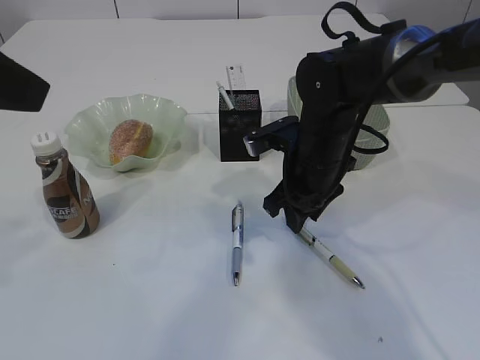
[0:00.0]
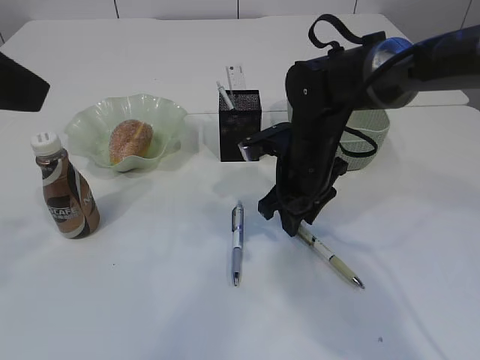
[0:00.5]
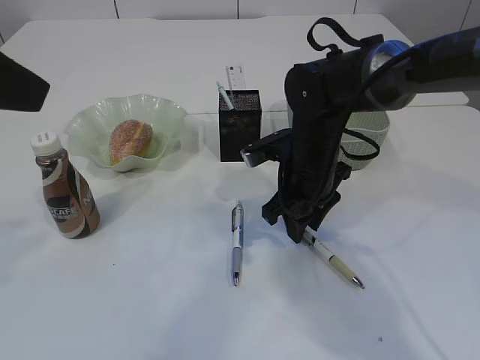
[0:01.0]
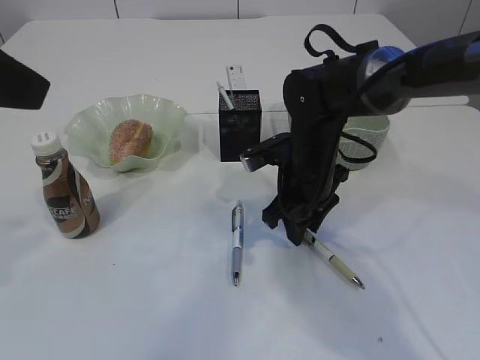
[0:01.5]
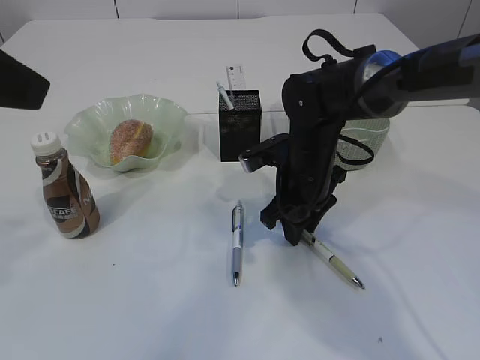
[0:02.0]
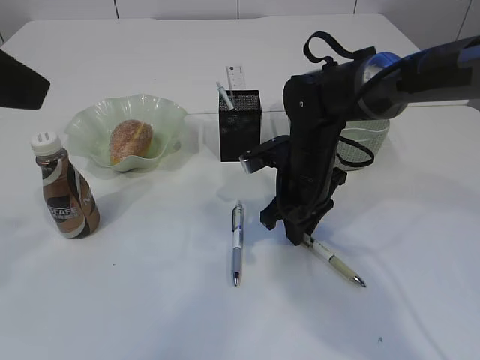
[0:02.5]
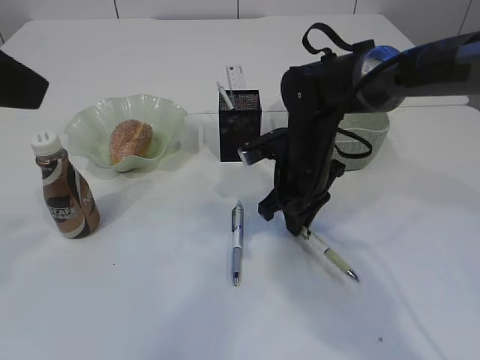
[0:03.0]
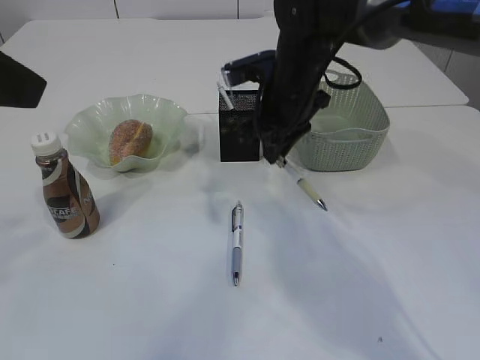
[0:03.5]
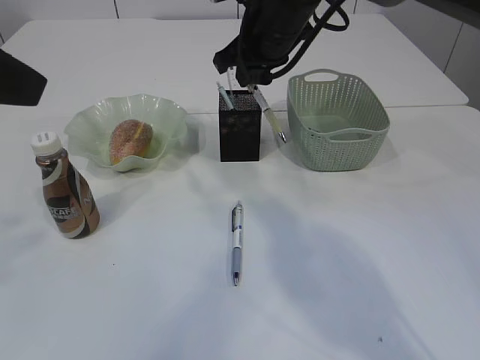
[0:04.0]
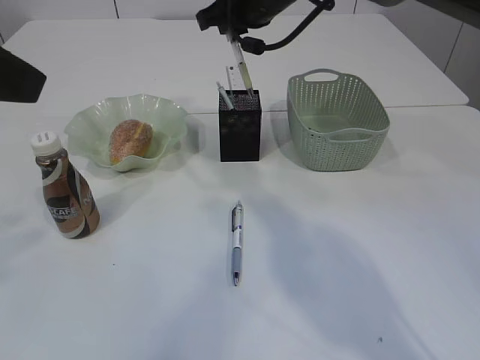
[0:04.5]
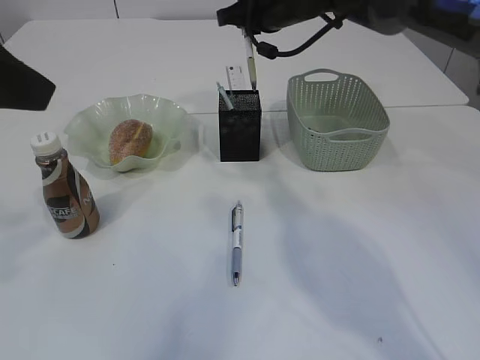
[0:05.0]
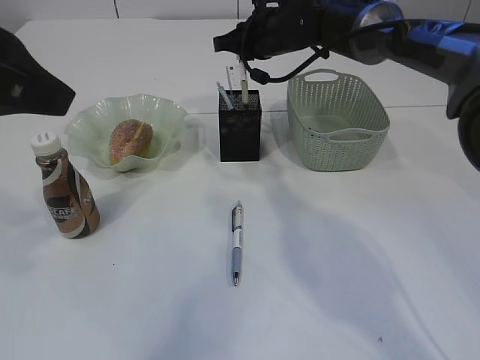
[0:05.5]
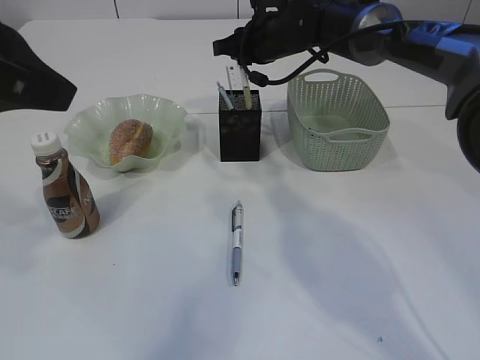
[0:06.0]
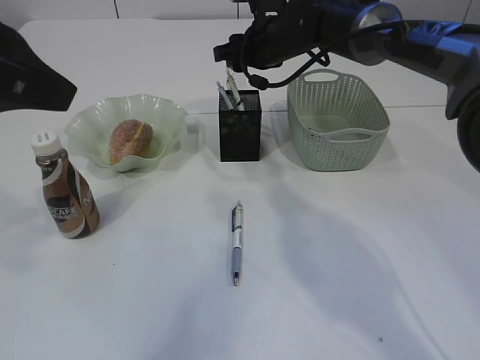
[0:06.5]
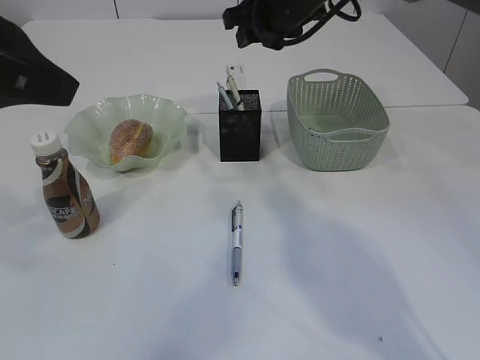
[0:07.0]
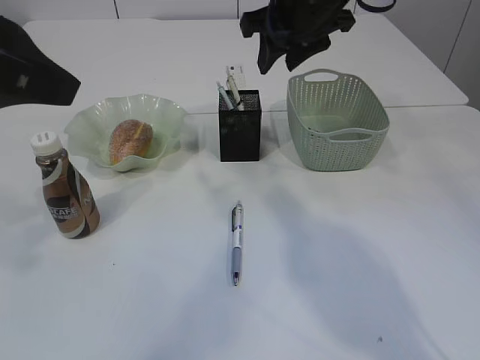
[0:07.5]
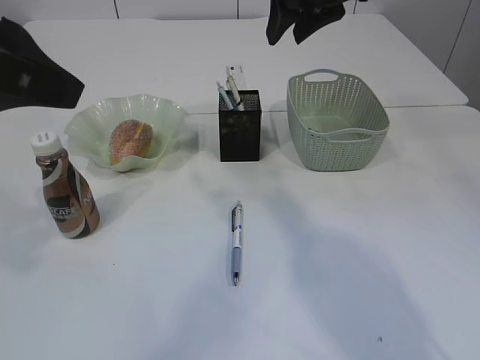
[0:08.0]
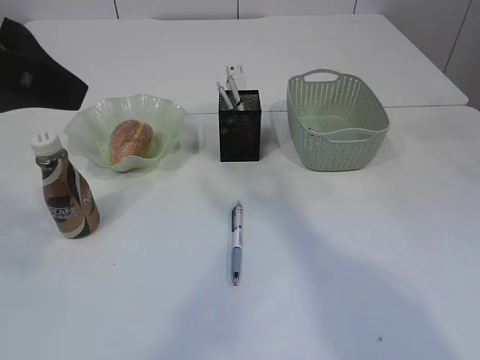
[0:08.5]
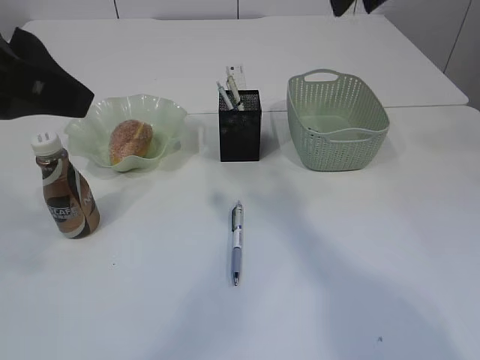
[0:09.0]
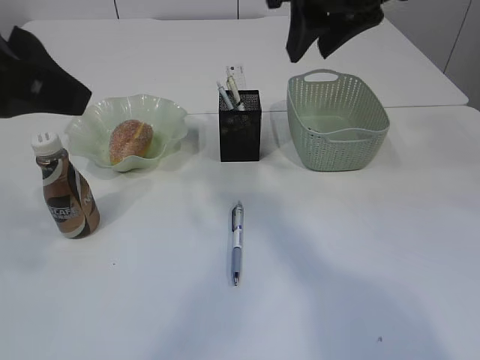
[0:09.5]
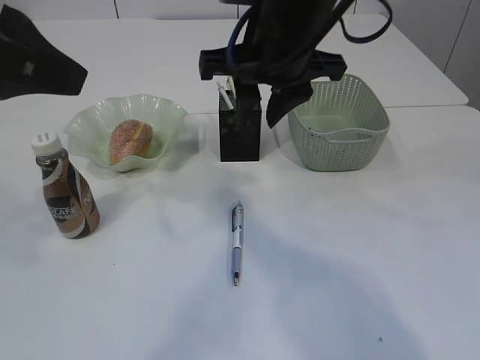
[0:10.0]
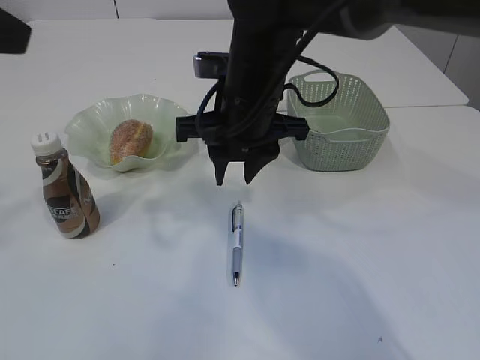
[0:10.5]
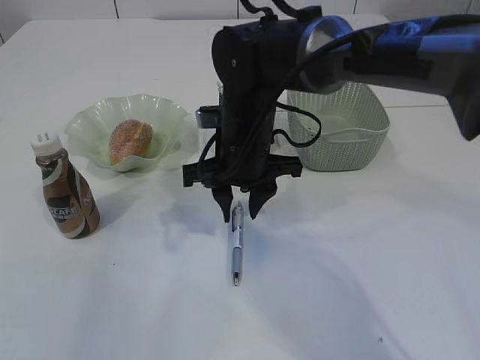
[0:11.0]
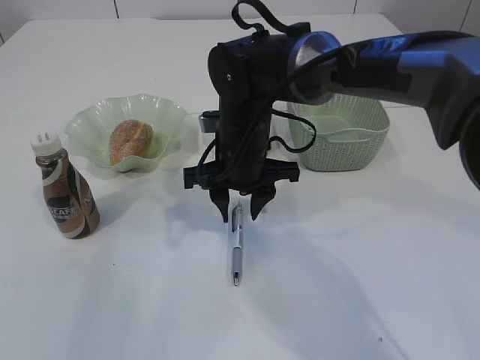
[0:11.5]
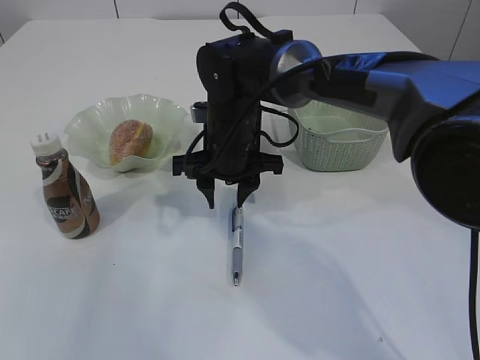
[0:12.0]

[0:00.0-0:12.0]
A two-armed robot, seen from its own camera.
Step, 0:00.0 to 0:03.5: Pick up the pen with right arm.
Step, 0:04.0 to 0:07.5: Place the pen into the pen holder.
0:00.0 to 0:02.0: There are only small adjustments of the grippers.
0:02.0 to 0:04.0: The right gripper heads upward and forward, covering approximately 15 cm, and closes up.
0:04.0 to 0:06.0: The right gripper heads forward and downward, covering approximately 10 cm.
0:06.0 to 0:08.0: The right gripper goes some 15 cm upward and backward.
0:08.0 to 0:10.0: The right gripper goes approximately 10 cm backward and to the left.
0:10.0 to 0:12.0: The right gripper is displaced downward by about 15 cm; the left gripper shifts roughly 10 cm to the left.

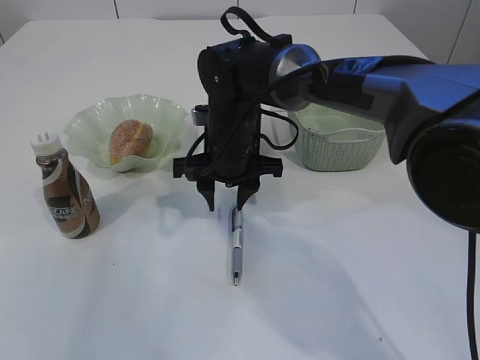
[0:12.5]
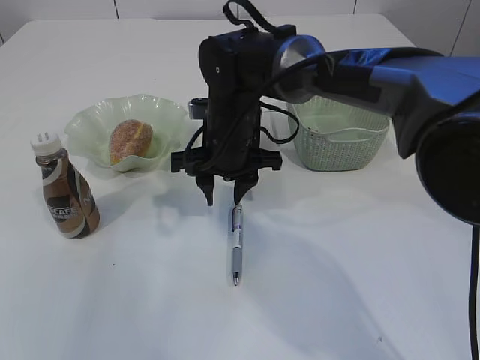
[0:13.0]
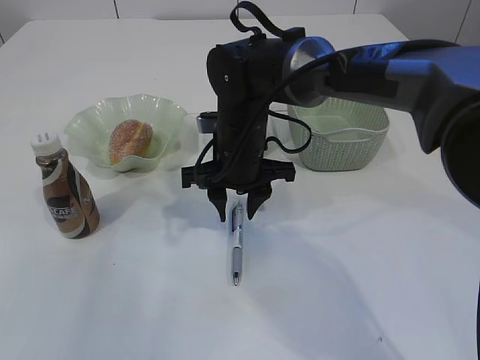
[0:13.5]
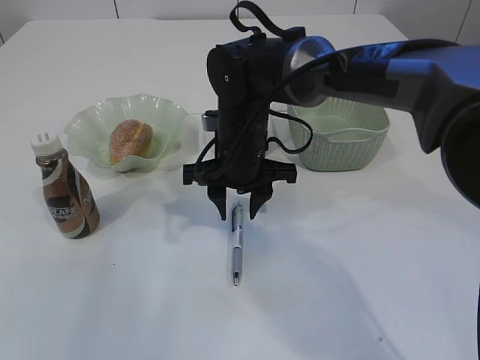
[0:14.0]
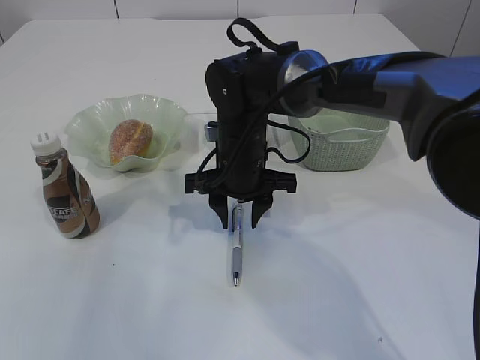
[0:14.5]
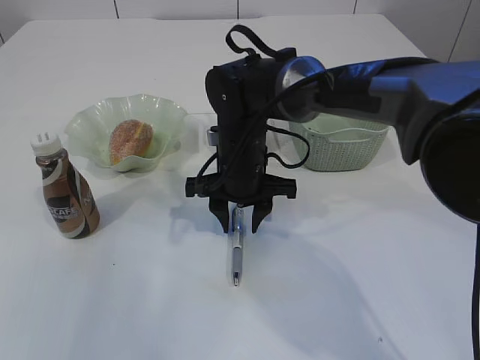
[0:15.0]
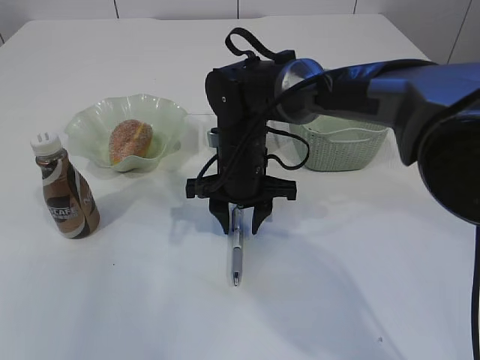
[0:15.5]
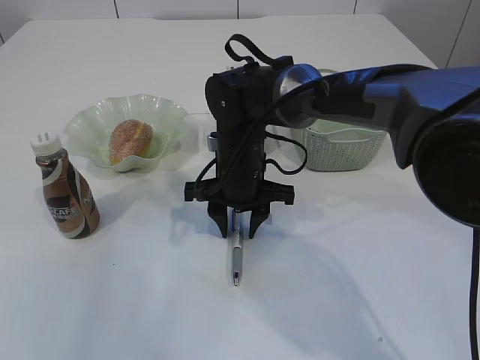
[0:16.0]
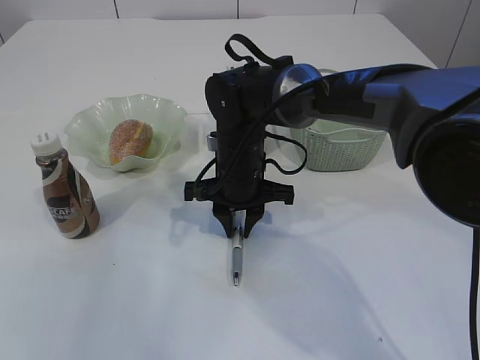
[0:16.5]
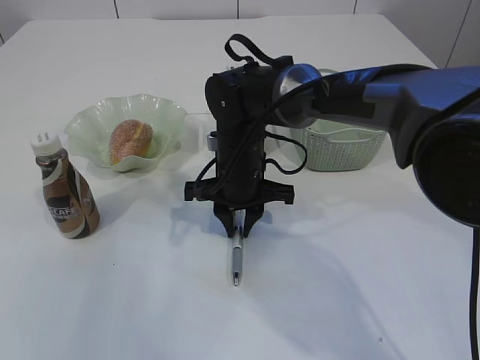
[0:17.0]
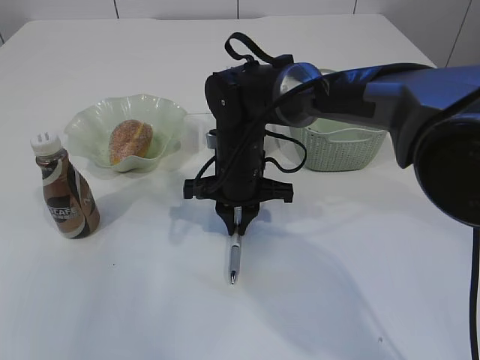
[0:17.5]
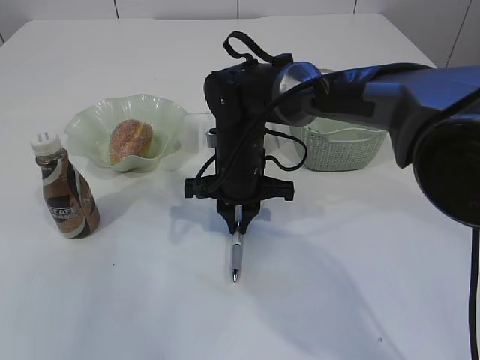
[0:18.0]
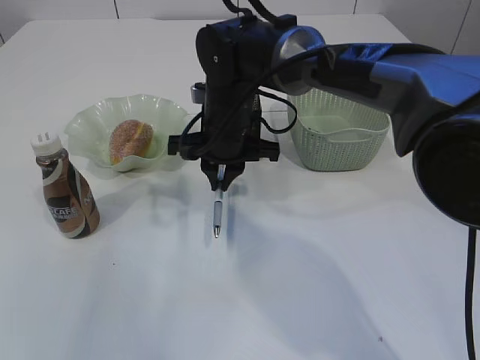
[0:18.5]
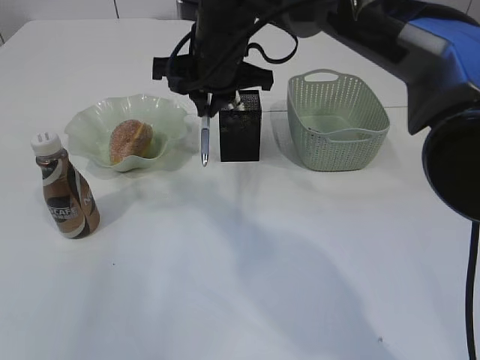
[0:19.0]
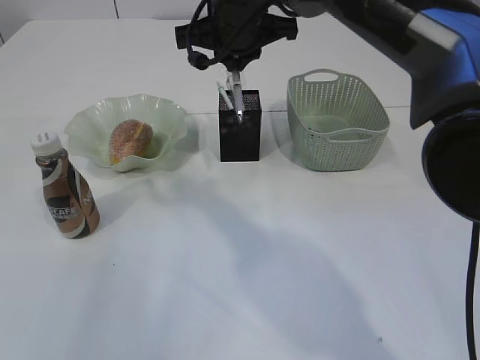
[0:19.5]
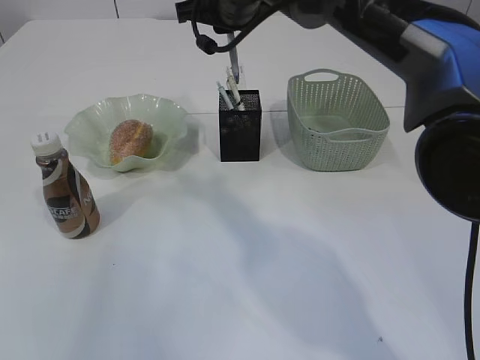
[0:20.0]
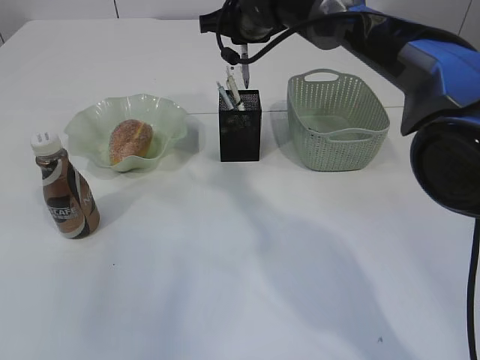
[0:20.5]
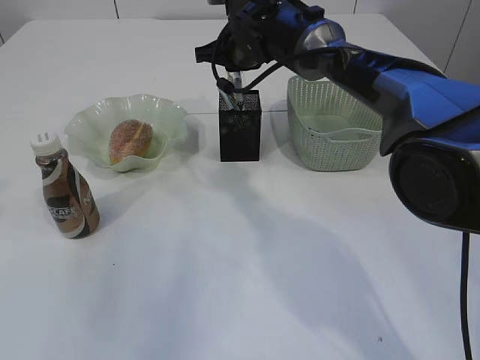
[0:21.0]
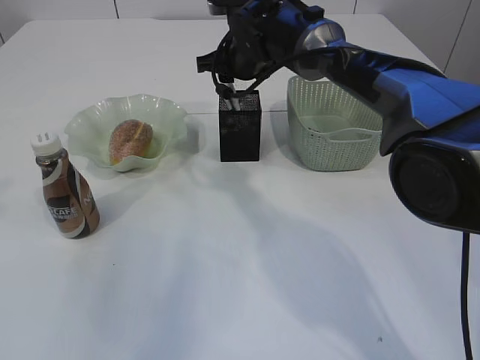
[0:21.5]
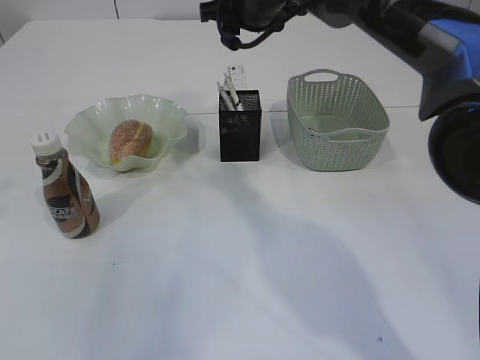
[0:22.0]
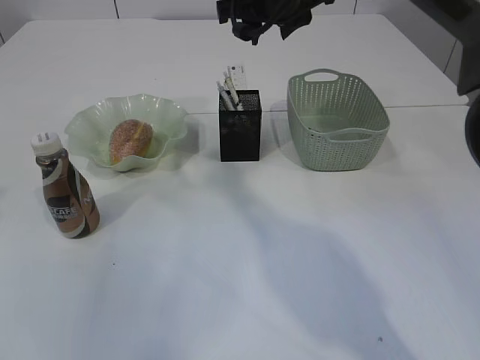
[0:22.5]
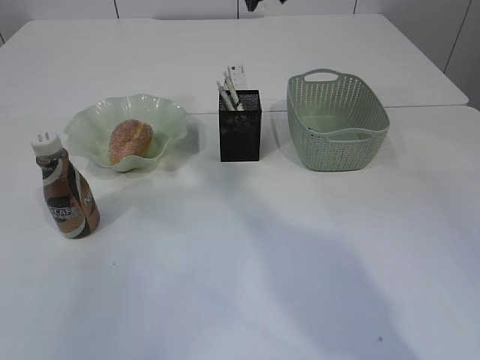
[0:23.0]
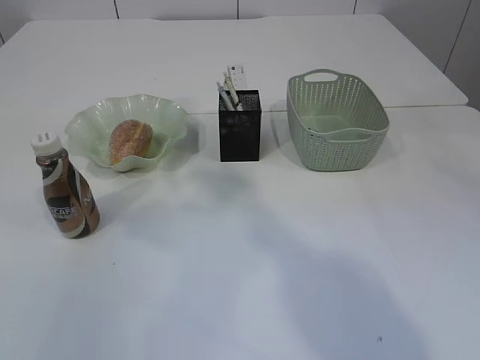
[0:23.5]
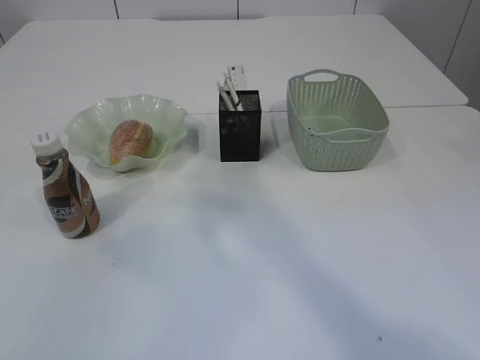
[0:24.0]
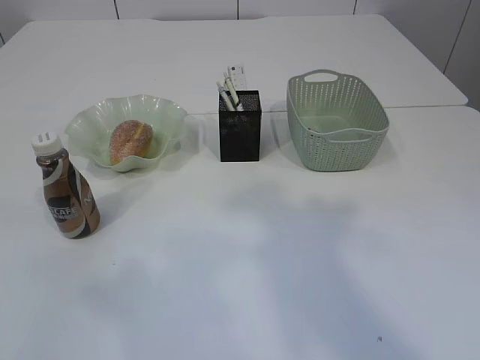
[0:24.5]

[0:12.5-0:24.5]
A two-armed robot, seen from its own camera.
Step, 0:12.5 to 0:18.5: Pick up the pen with right arm.
Step, 0:19.0 to 0:22.5: Place the pen into the pen holder.
0:12.5 to 0:16.5: The grippers move only a little.
0:16.5 to 0:18.5: The right gripper goes approximately 5 cm upward.
0:18.5 to 0:20.5: The right gripper shifts roughly 15 cm forward, upward and to the right.
0:20.5 to 0:22.5: The right gripper travels upward by roughly 5 cm, and opens up.
0:22.5 to 0:24.5: The left gripper goes roughly 15 cm backward. The right gripper heads backward, to the right and upward, covering some 35 cm.
